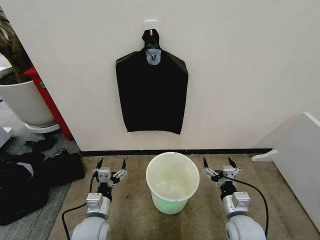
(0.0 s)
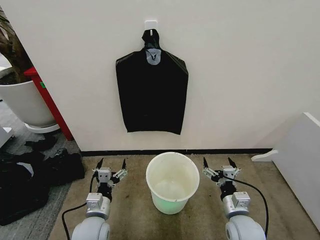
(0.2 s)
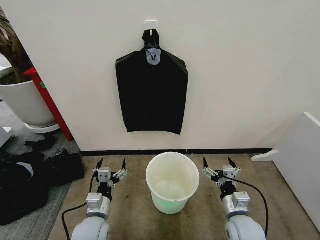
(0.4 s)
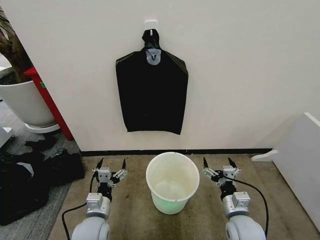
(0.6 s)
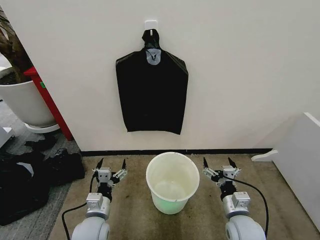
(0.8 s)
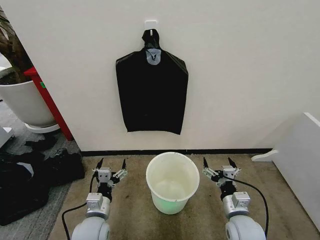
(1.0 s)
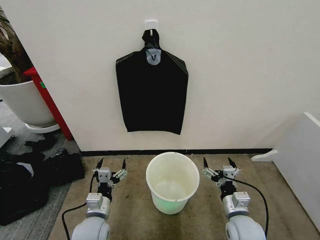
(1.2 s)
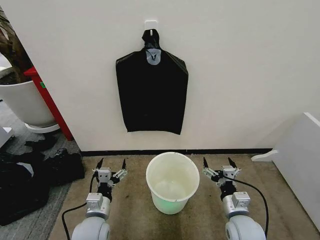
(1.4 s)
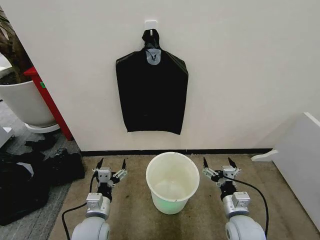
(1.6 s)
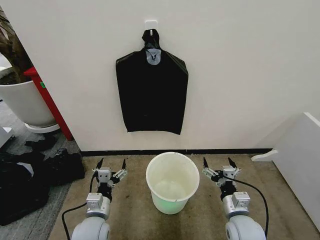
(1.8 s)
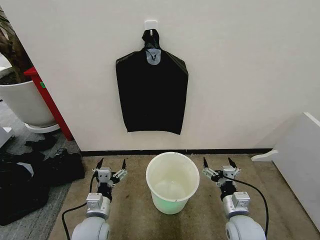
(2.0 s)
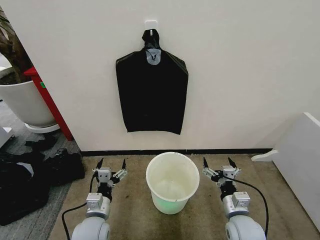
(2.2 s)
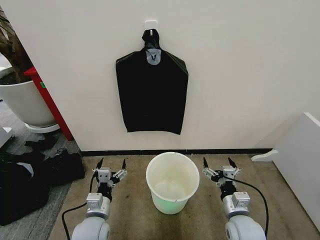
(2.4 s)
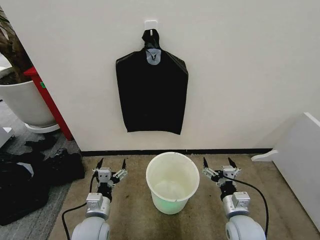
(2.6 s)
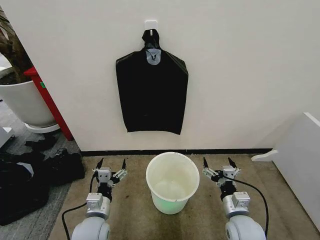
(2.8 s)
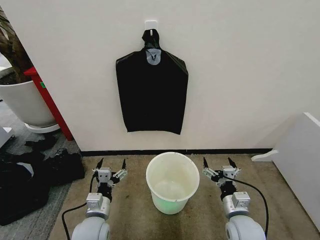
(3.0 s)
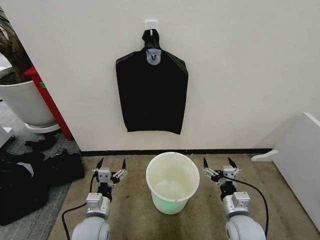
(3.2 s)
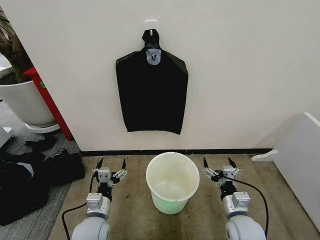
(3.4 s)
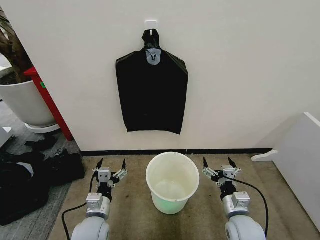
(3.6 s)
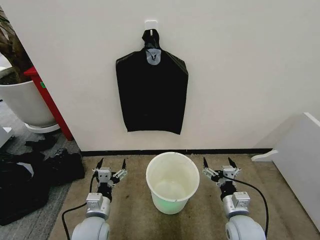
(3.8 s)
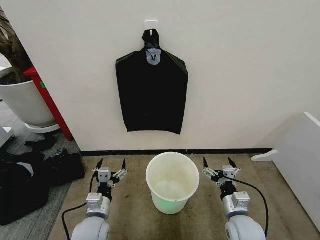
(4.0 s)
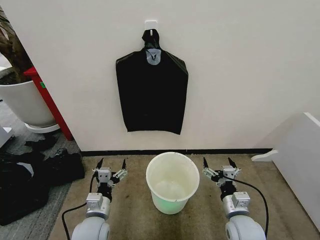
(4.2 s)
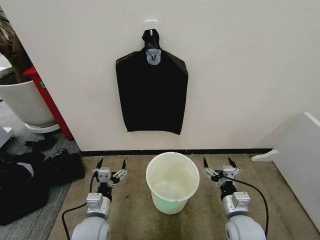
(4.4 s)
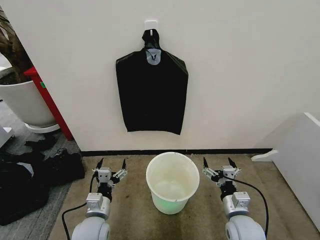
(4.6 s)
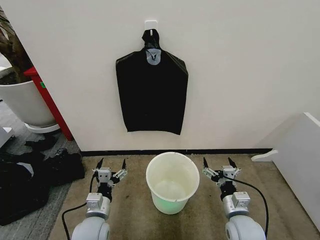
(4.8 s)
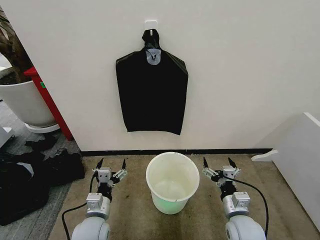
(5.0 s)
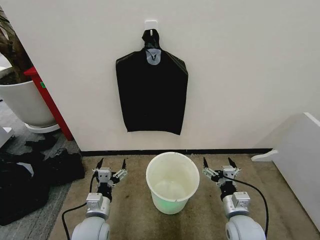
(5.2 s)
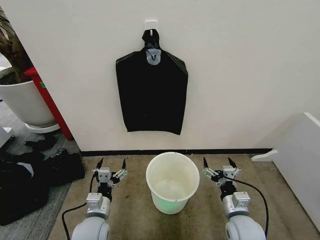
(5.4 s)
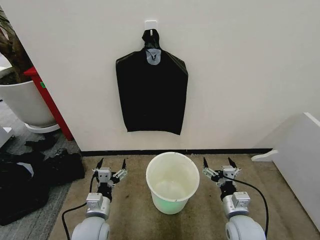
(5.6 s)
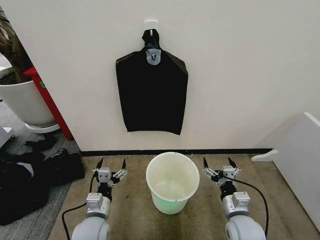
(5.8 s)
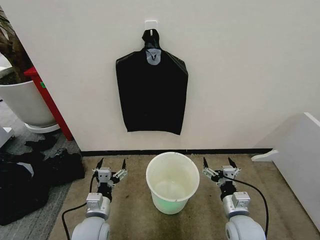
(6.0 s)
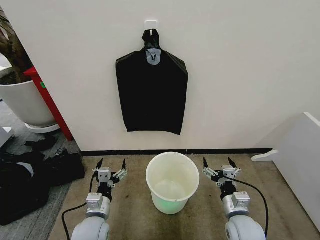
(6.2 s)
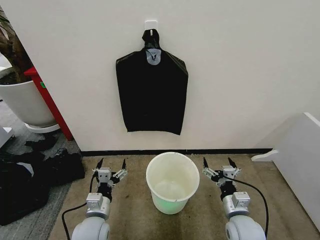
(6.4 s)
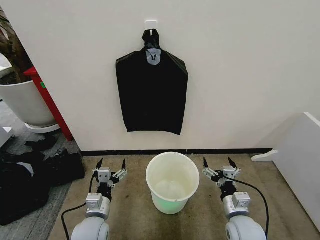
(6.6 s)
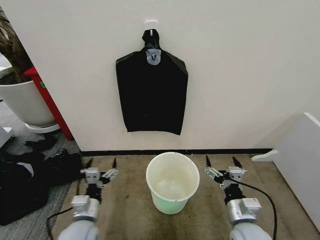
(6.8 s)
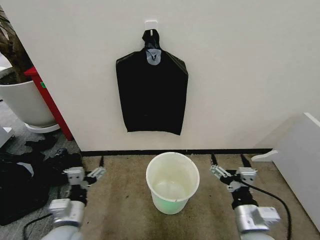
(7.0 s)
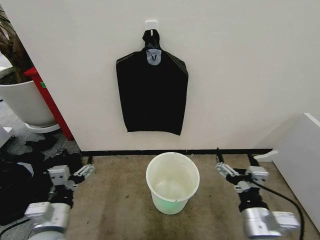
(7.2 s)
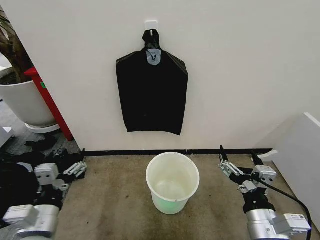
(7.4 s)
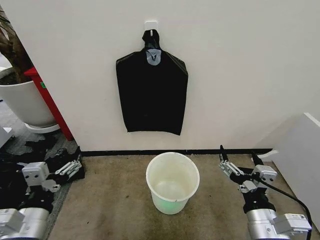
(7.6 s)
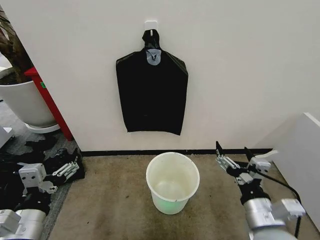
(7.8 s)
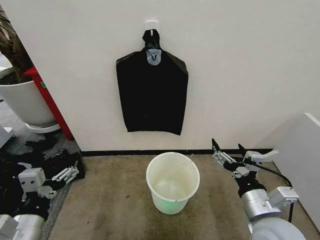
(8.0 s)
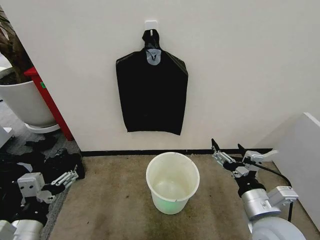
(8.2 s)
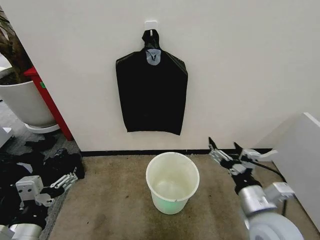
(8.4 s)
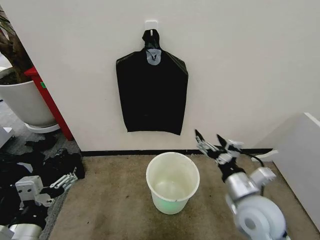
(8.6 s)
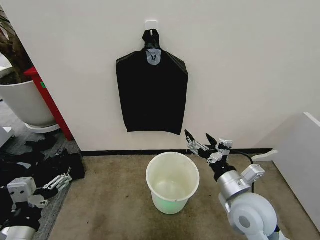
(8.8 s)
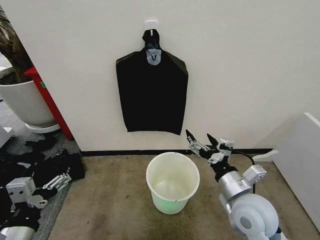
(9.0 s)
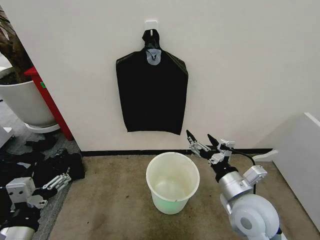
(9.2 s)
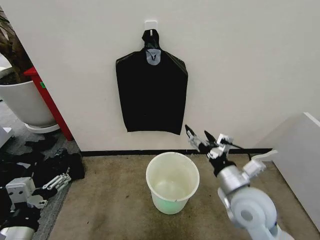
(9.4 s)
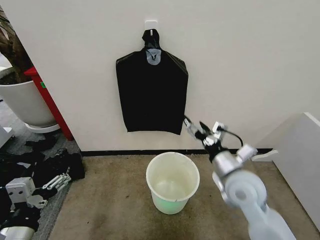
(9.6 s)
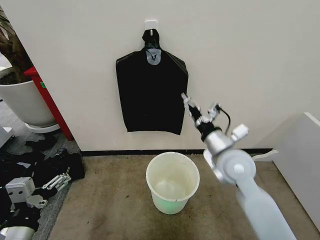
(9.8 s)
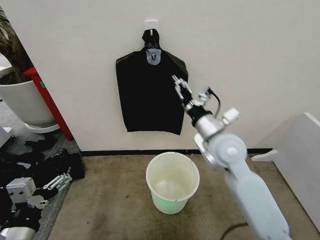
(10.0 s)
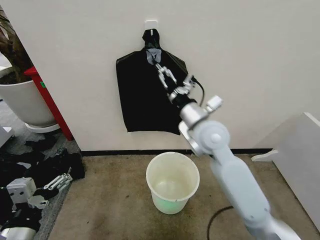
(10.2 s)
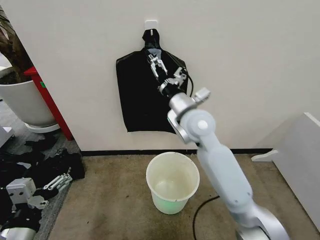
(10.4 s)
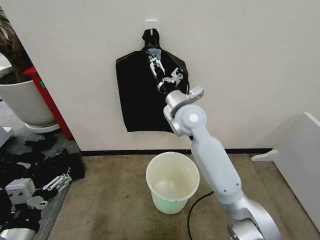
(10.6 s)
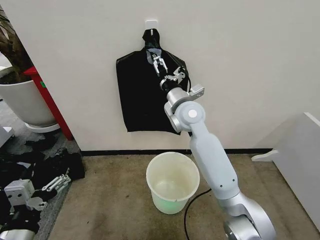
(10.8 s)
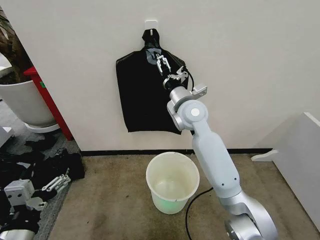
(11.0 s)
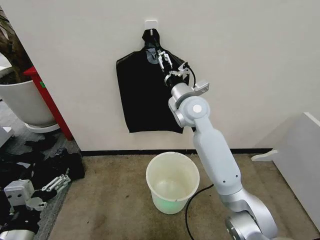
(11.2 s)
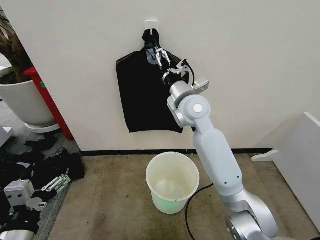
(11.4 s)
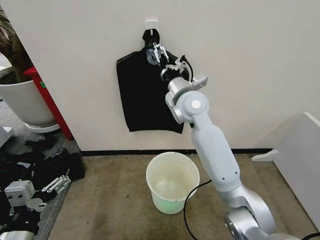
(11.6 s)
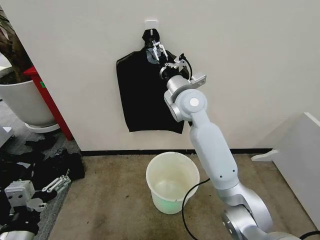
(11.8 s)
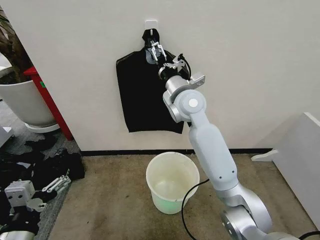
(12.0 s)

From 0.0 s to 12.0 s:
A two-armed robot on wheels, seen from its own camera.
Task of the whole recording: Place the garbage bag over the trash bin.
From 1.6 s to 6.0 s: Both grippers stay put.
From 6.0 s to 7.6 s: The left gripper travels upward, backward and to the left by about 20 cm, while the right gripper is displaced upward and backward by approximately 15 cm.
From 7.6 s to 9.0 s: The right gripper travels forward by about 10 cm.
From 9.0 s to 10.4 s: The right gripper travels forward, upward and to the left by about 25 cm.
From 10.4 s to 12.0 s: The right gripper moves forward, approximately 5 cm.

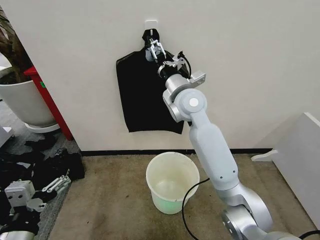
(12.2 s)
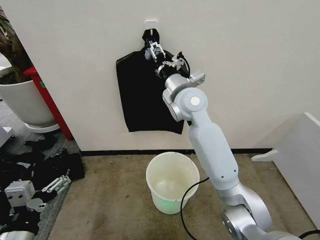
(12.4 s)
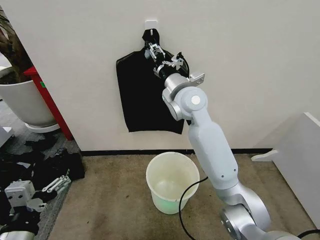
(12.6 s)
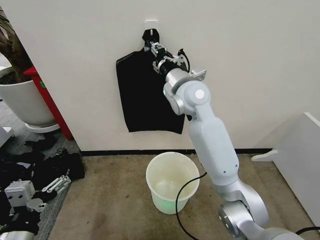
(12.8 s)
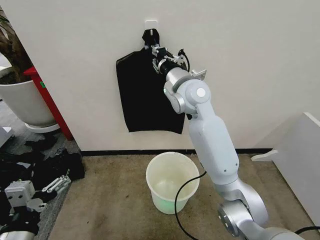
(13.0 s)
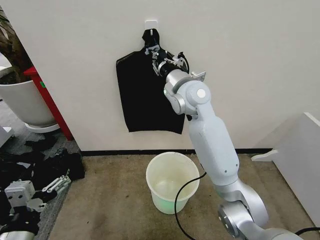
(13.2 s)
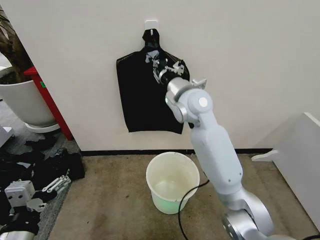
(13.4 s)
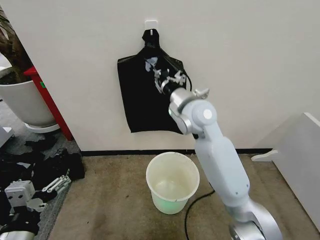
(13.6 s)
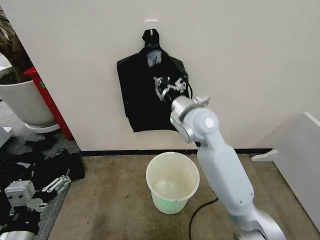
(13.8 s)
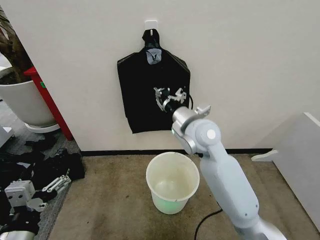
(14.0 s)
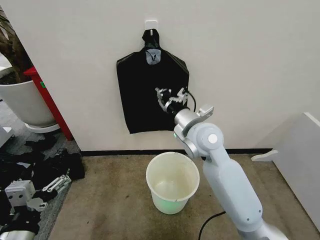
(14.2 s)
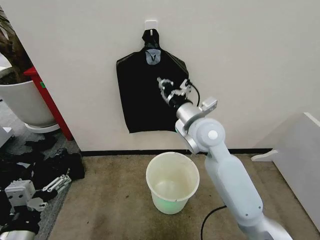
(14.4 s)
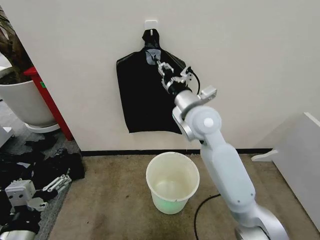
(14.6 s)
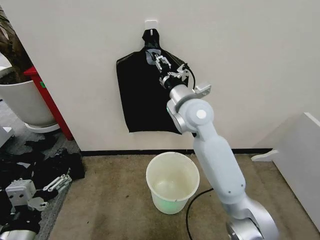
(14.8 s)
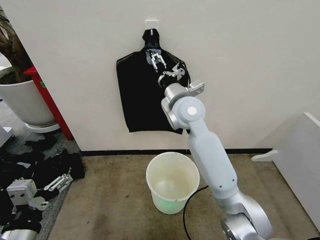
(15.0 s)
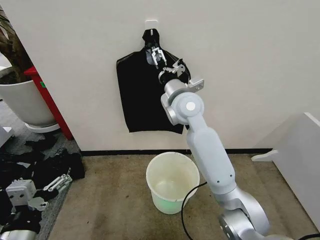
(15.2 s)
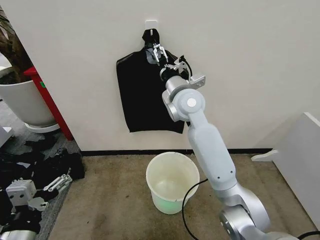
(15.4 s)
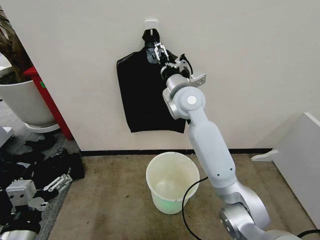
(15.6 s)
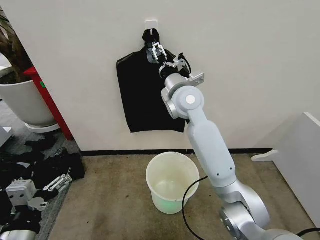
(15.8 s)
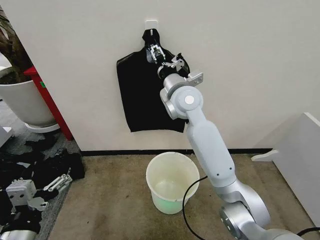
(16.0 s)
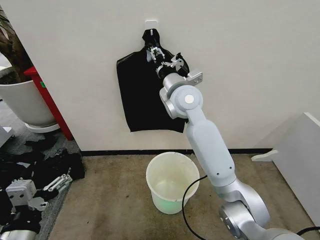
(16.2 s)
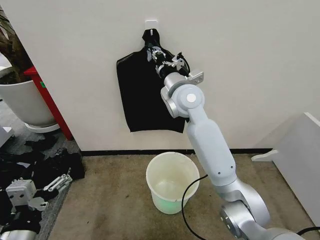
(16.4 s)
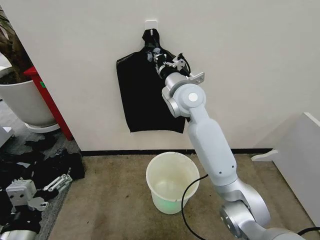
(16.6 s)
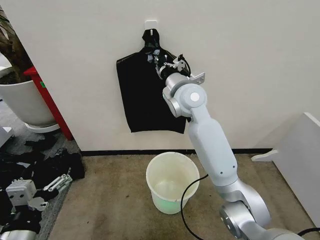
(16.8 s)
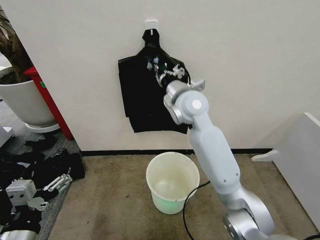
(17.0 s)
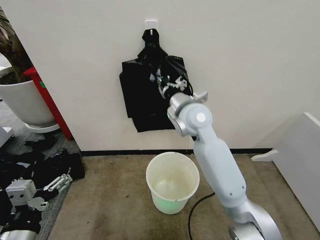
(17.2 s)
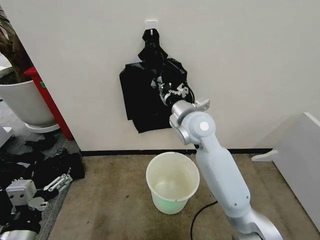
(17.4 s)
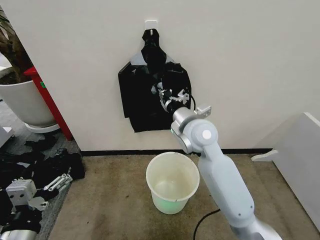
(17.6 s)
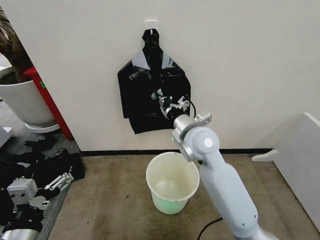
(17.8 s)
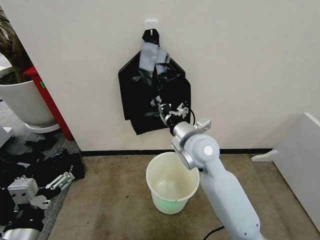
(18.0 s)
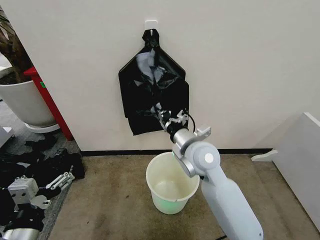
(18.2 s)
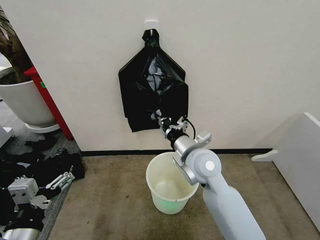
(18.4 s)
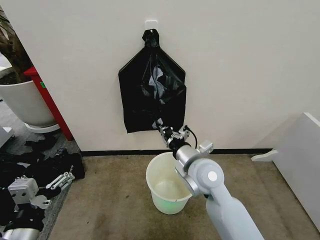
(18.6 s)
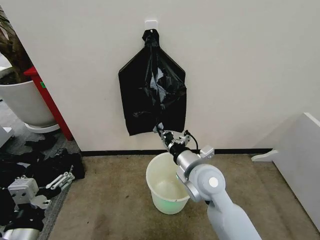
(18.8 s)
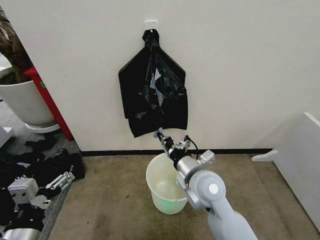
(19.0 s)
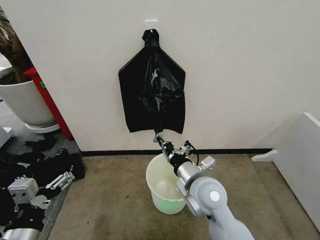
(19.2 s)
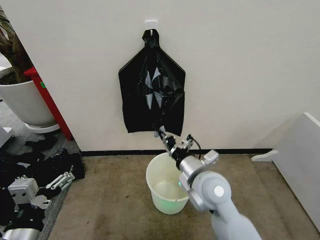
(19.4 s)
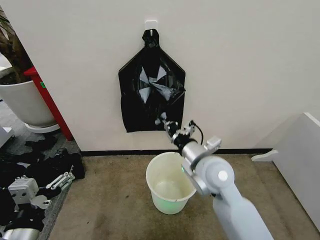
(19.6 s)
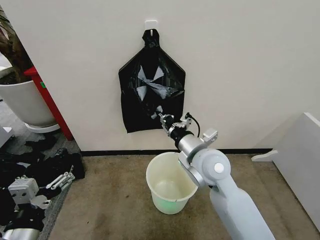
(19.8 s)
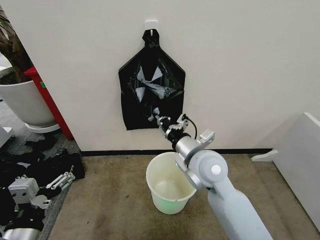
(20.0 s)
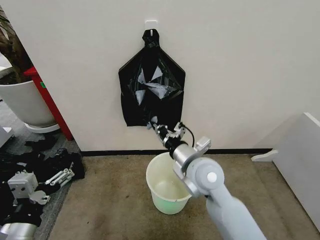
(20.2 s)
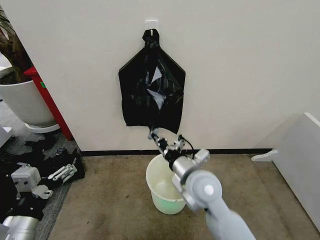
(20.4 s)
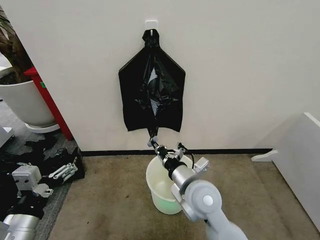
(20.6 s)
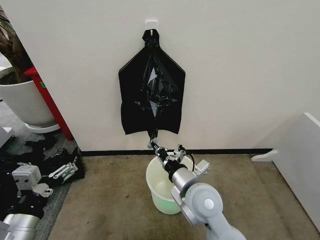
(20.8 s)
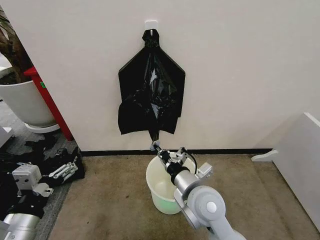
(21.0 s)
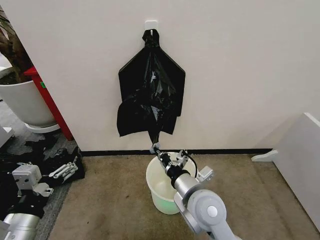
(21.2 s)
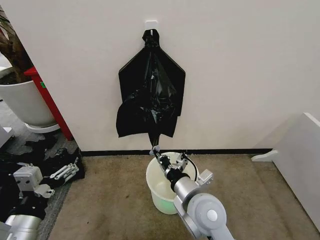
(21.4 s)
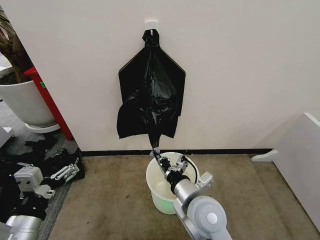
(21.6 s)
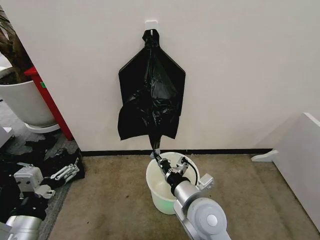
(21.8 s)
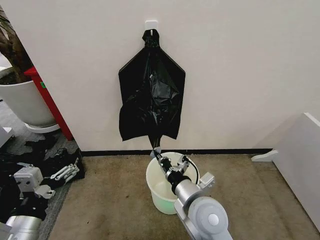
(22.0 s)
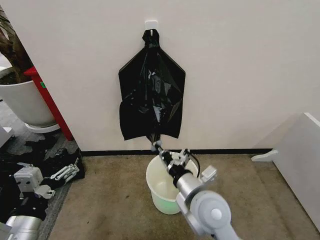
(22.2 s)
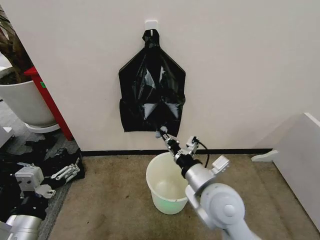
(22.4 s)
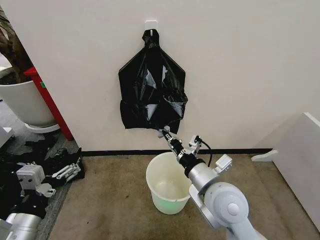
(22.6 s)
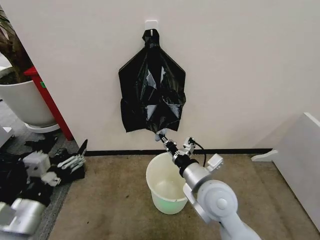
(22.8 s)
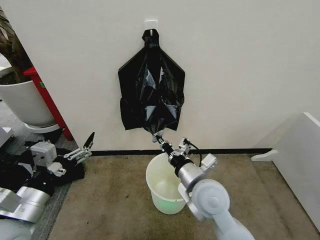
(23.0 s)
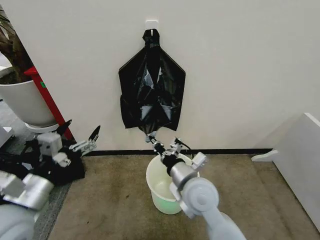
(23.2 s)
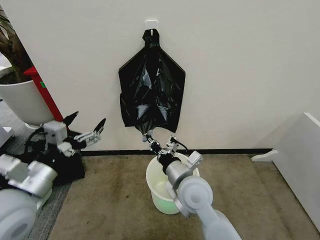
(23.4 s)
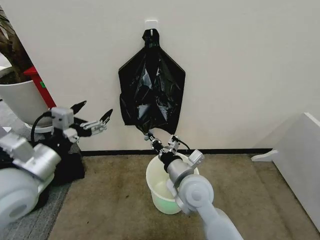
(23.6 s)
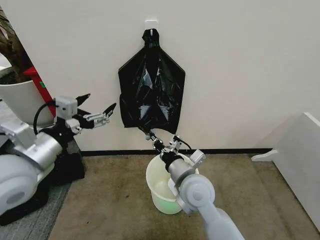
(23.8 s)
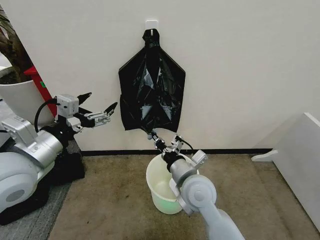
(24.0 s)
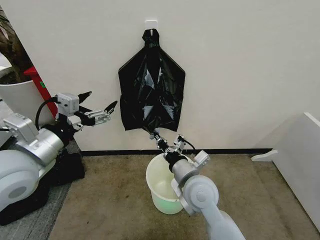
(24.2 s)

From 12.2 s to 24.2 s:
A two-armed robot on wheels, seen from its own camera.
Task of the whole recording: Place the garbage bag over the trash bin.
From 12.2 s to 13.8 s: The right gripper is displaced backward by about 5 cm, and closes.
From 13.8 s to 15.2 s: The right gripper changes place by about 5 cm, and opens.
From 15.2 s to 16.6 s: The right gripper closes up.
From 16.6 s to 18.2 s: The right gripper shifts roughly 15 cm backward and downward.
From 19.8 s to 21.2 s: The right gripper travels backward and downward by some 10 cm.
From 21.2 s to 22.6 s: The right gripper shifts by about 5 cm.
From 22.6 s to 24.2 s: The right gripper shifts by approximately 5 cm. The left gripper goes roughly 20 cm forward and upward.
